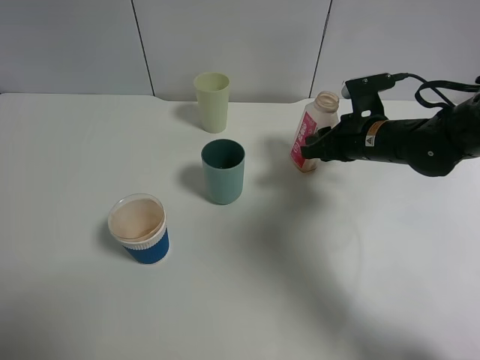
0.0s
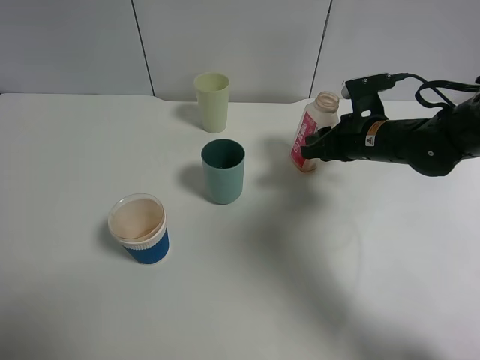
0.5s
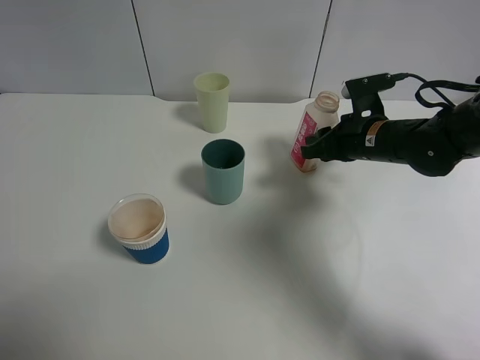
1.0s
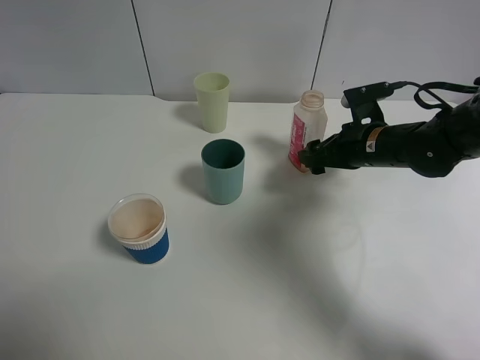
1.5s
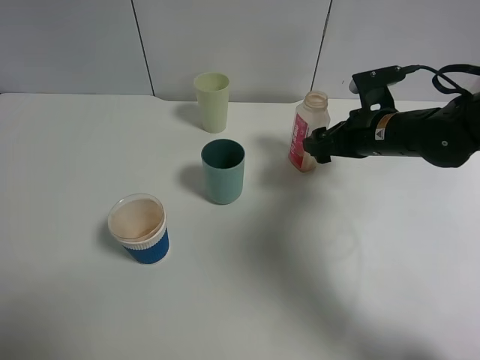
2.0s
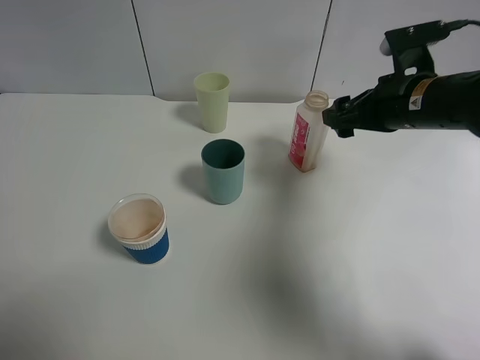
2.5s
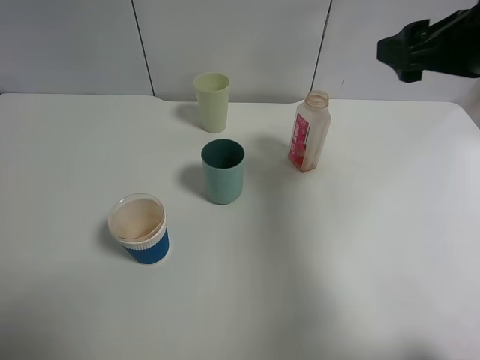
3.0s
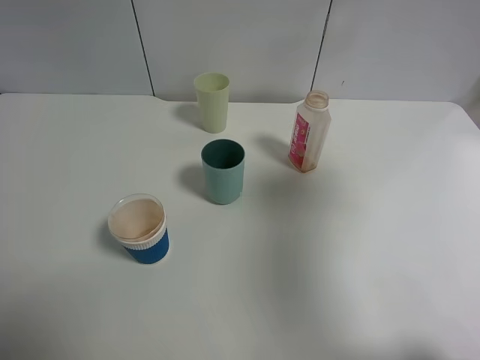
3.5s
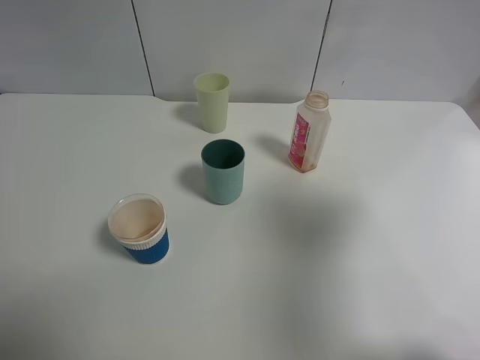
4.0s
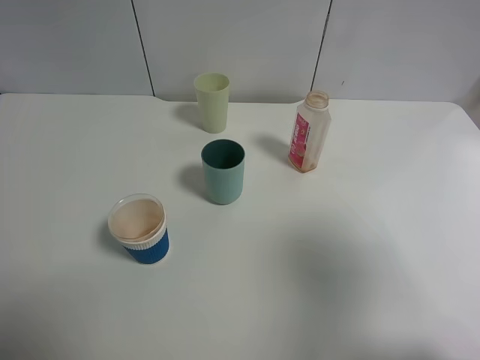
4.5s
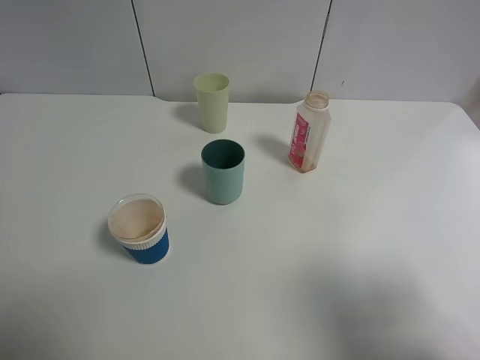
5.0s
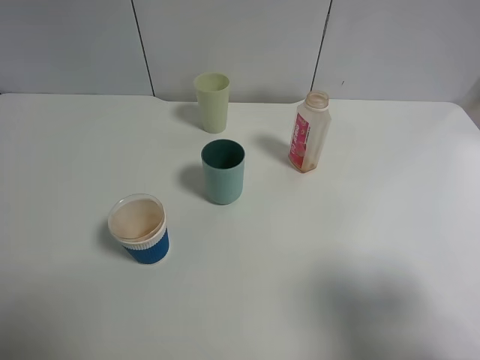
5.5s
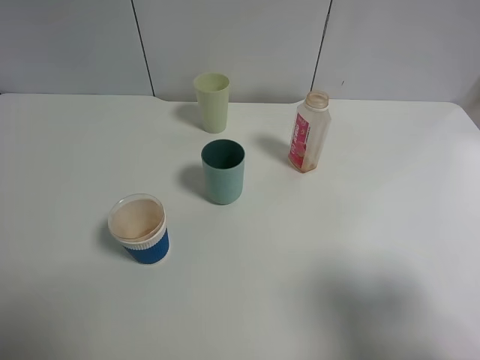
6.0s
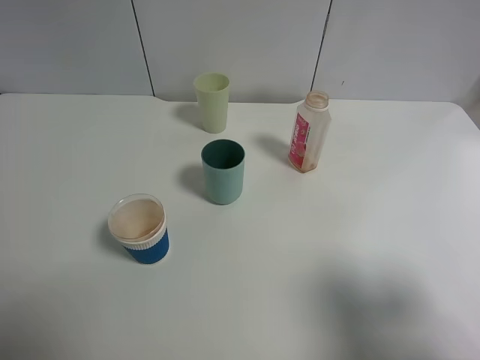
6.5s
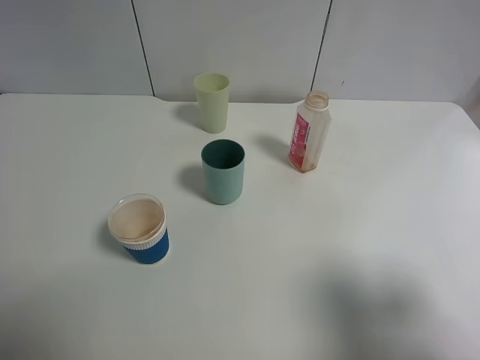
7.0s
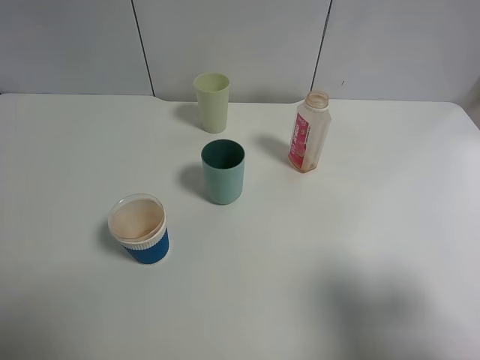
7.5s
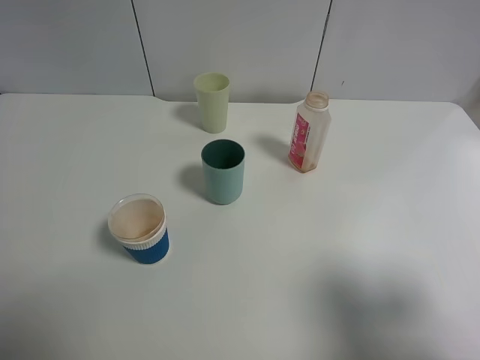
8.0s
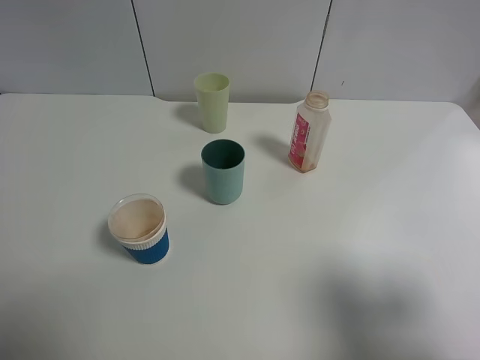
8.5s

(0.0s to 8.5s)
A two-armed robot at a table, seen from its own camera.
Task of the whole recording: use a gripper to hold the bottle of the drink and pour it into a random cup.
0.0s - 2.0s: The right gripper opens up.
2.0s - 4.0s: The right gripper travels backward, upward and to the right by roughly 35 cm.
4.0s - 6.5s: The right gripper shifts some 10 cm backward and downward.
6.5s - 8.5s: The two grippers keep their place.

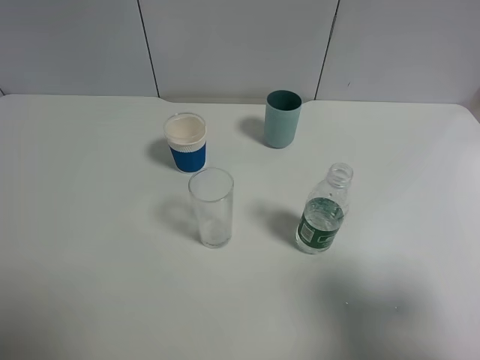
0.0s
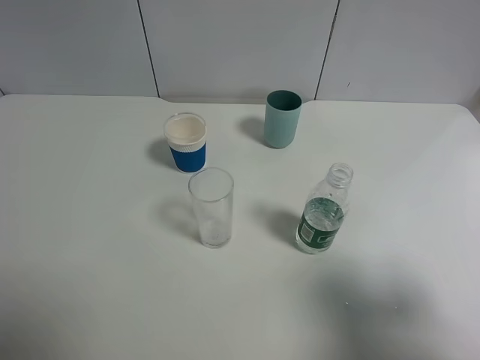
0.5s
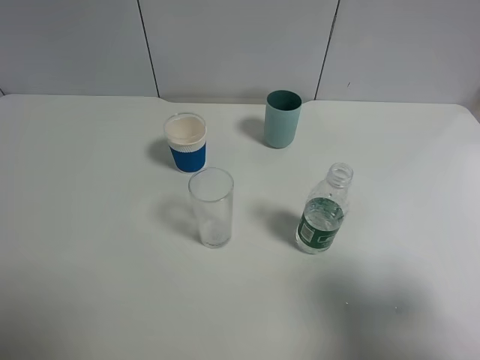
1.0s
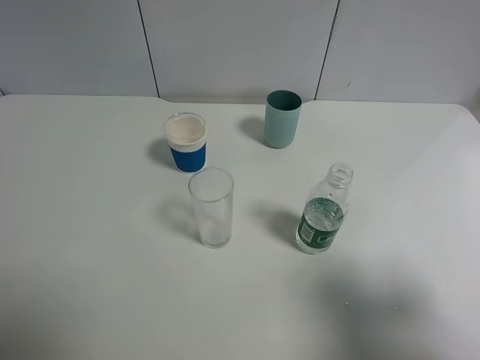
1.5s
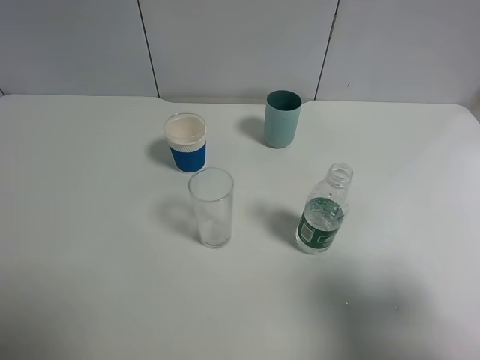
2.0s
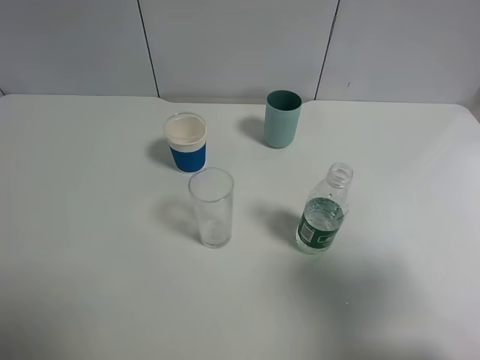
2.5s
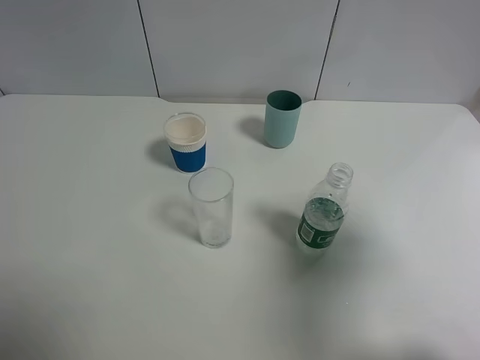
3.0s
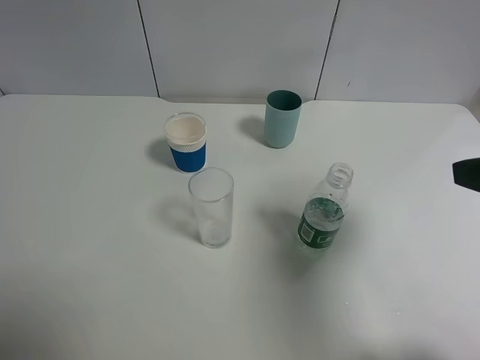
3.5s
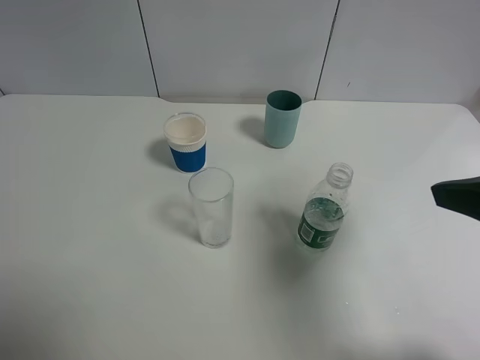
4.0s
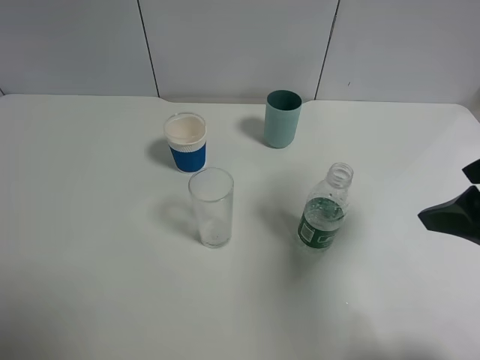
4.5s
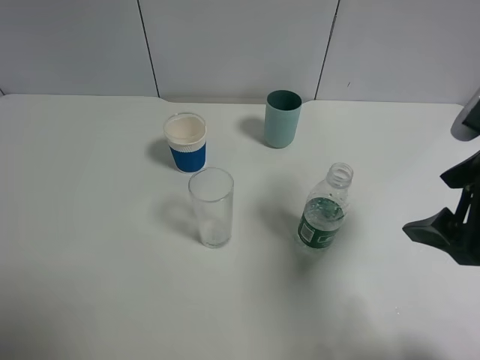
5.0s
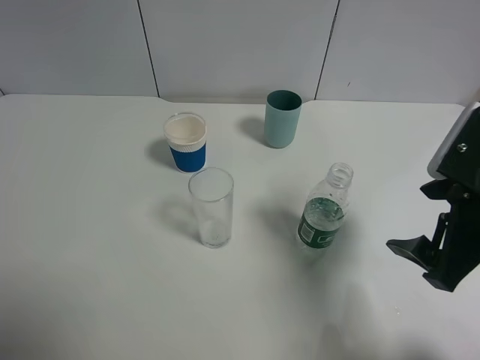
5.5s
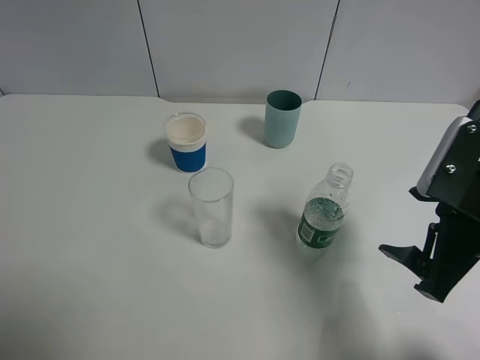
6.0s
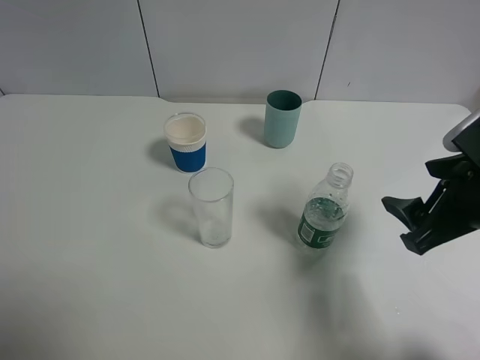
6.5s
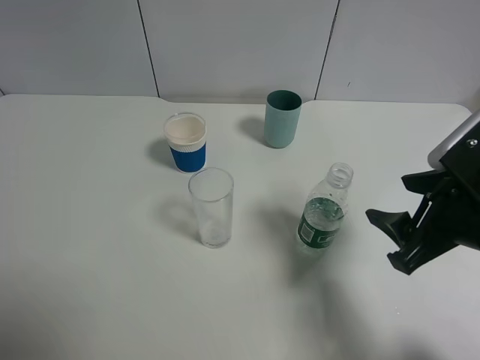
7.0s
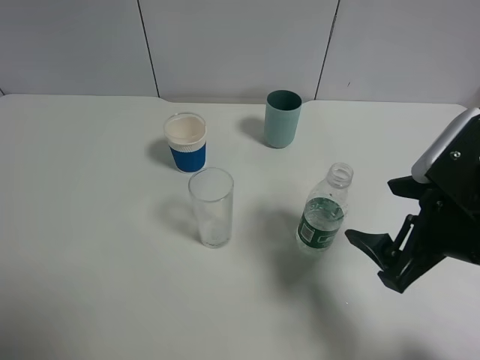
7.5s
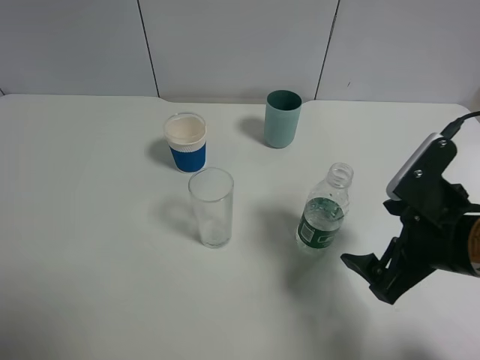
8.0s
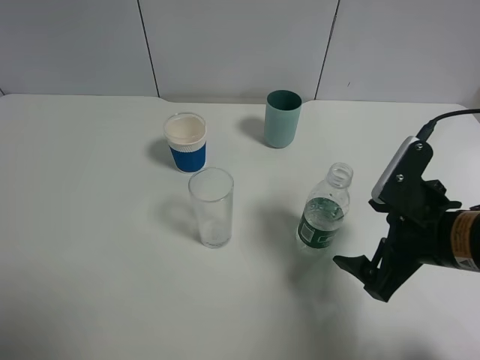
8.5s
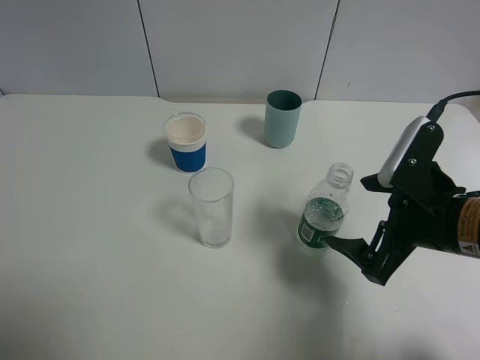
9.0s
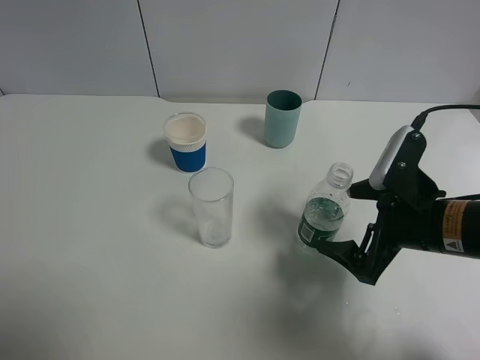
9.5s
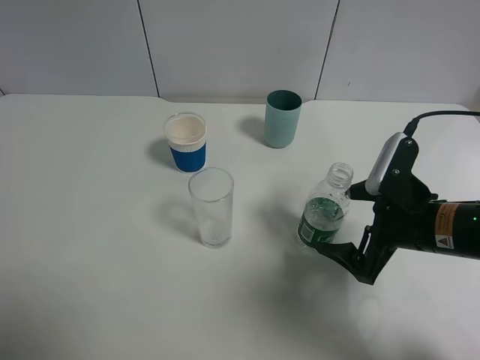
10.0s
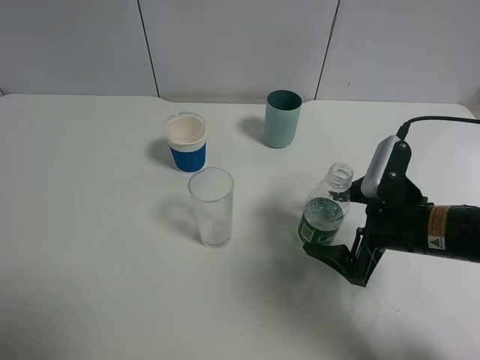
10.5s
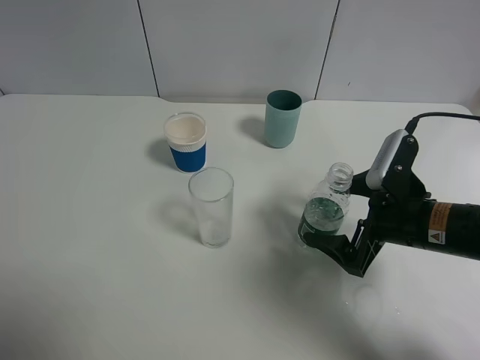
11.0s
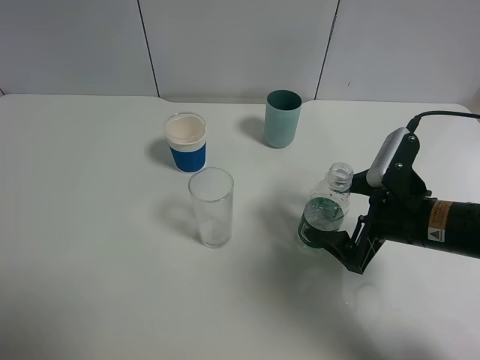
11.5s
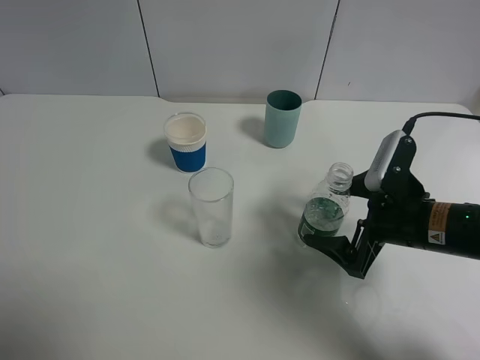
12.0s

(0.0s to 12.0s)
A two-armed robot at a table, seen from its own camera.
Task of the whole recording: use a gripper to hold the bottle of the drink and pour it into a random cup.
0.0s - 2.0s: Both grippers stay about where they are.
2.0s - 4.0s: The right gripper travels forward by approximately 10 cm.
4.0s - 6.0s: The right gripper moves downward, about 10 cm.
6.0s - 8.0s: The right gripper closes, then opens again.
8.0s - 10.0s: The right gripper changes place by roughly 5 cm.
10.0s - 12.0s: There are only small adjustments of the grippers.

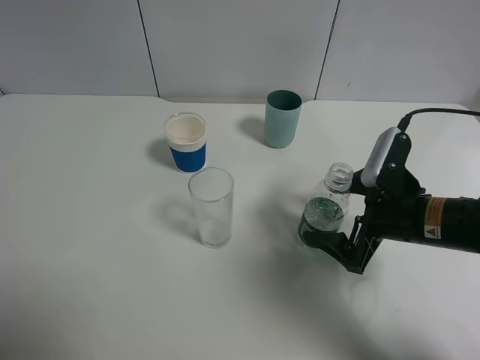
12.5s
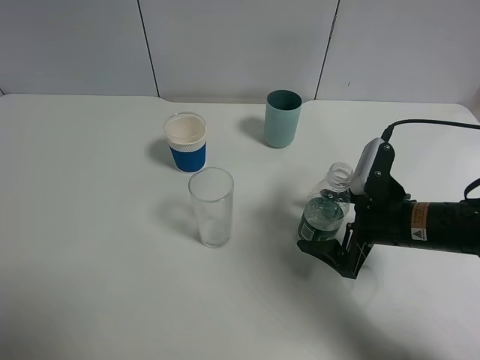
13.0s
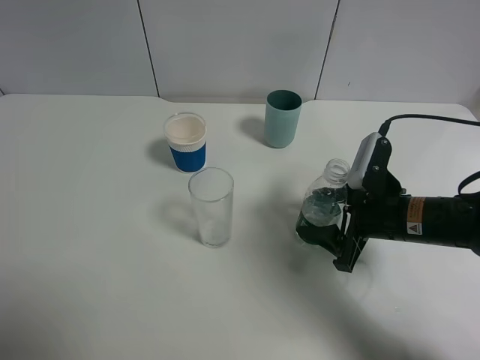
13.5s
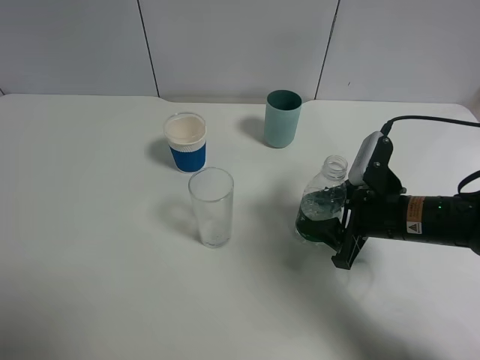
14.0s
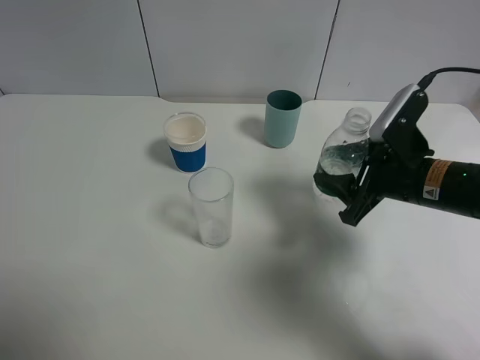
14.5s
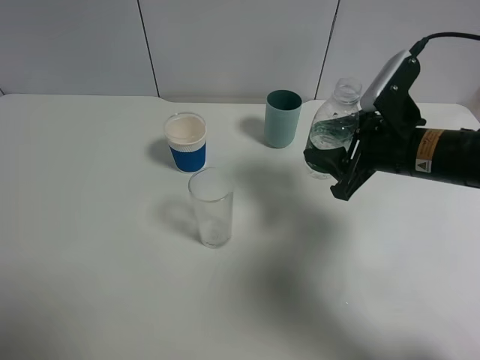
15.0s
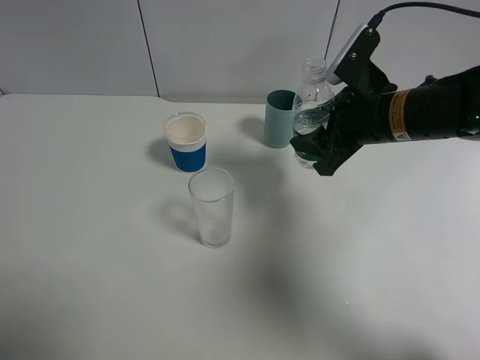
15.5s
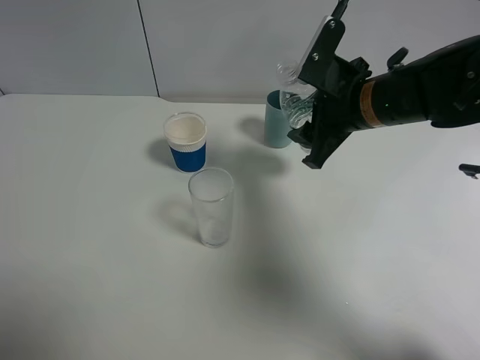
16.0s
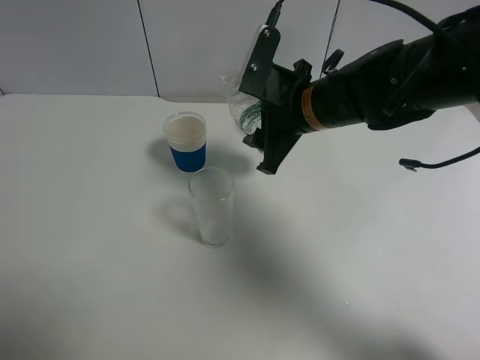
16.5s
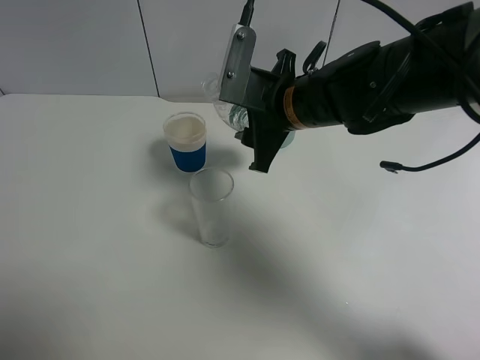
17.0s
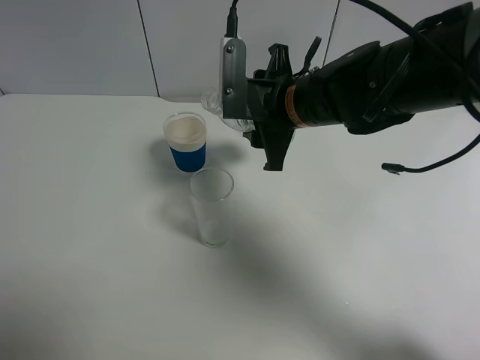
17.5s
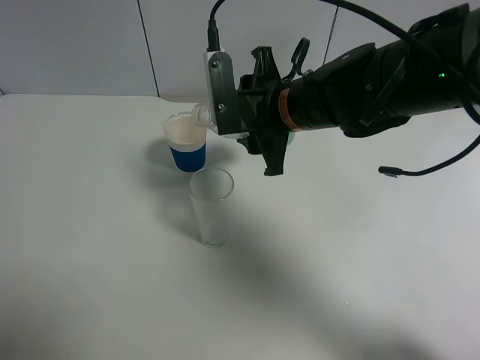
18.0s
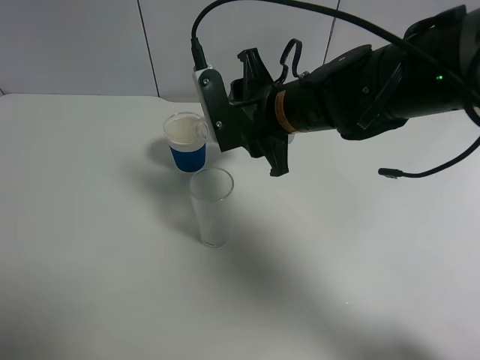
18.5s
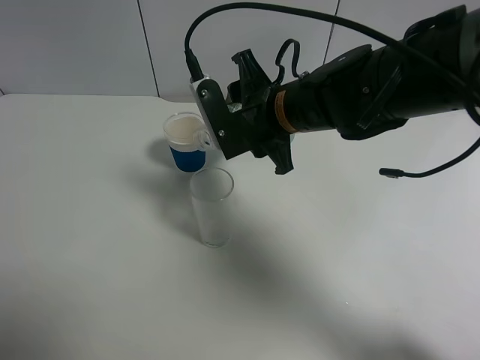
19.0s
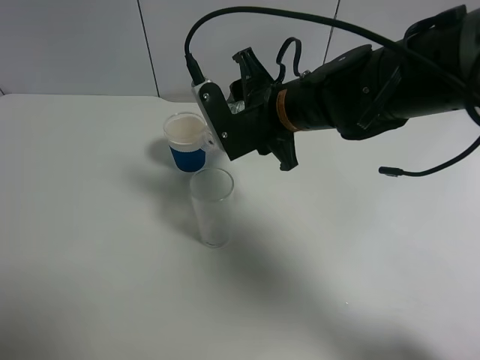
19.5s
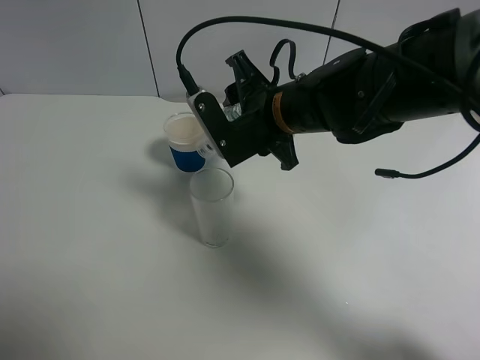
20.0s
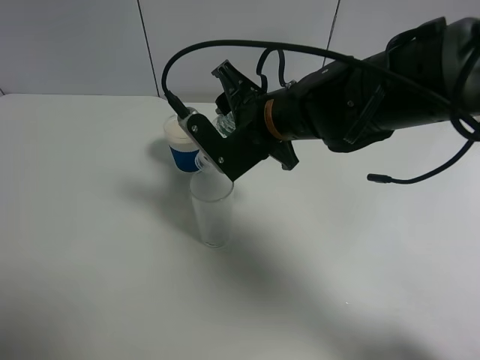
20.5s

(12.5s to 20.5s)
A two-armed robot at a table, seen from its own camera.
Task of the whole recording: use a gripper to hold the bottle of the drink and pour it into a random cup.
12.5s - 14.5s: The right gripper closes its fingers.
14.5s - 16.5s: The right gripper is displaced to the left and forward by roughly 15 cm.
